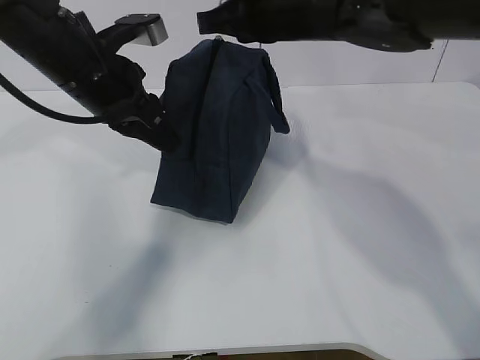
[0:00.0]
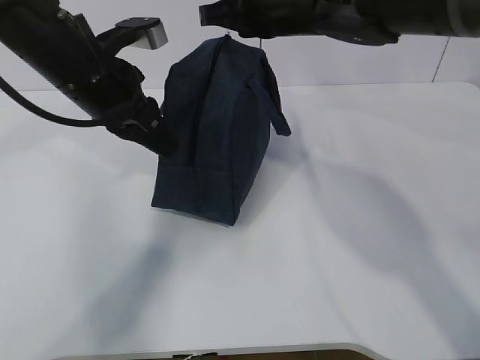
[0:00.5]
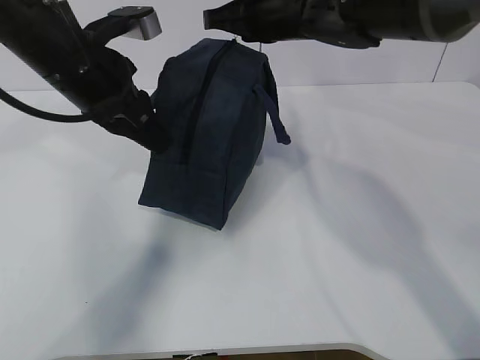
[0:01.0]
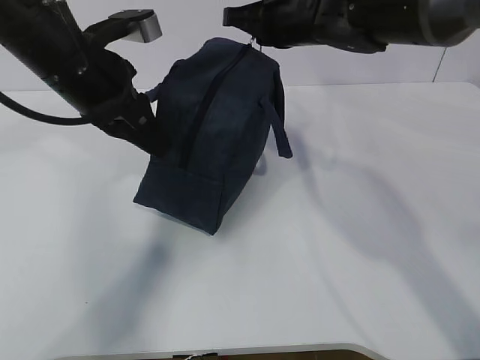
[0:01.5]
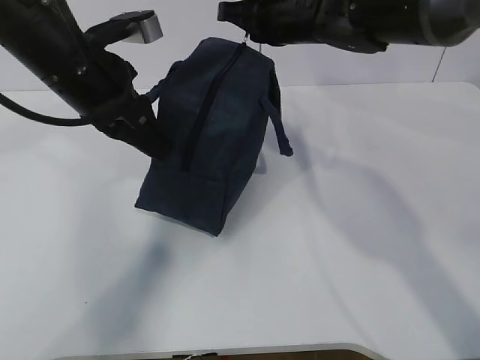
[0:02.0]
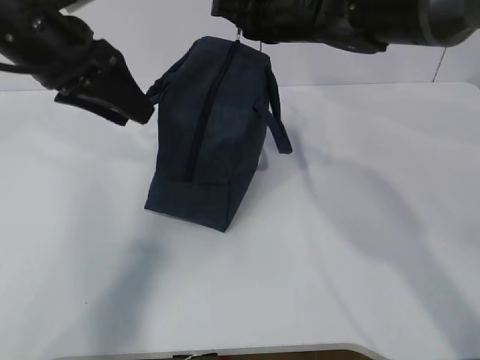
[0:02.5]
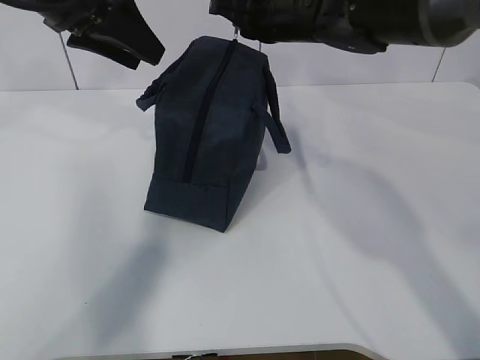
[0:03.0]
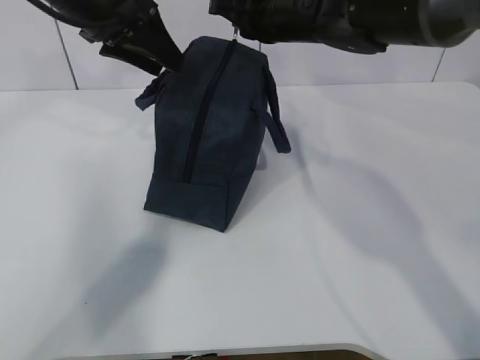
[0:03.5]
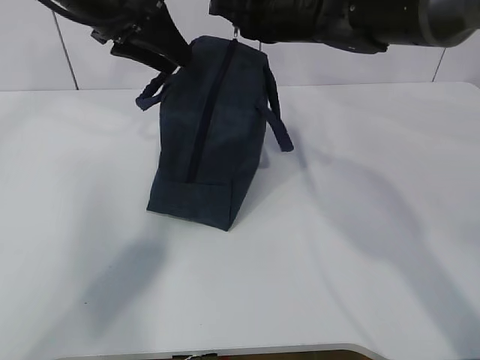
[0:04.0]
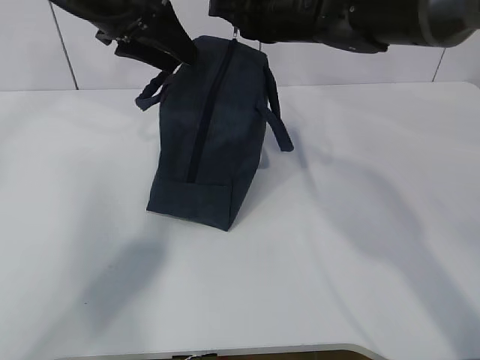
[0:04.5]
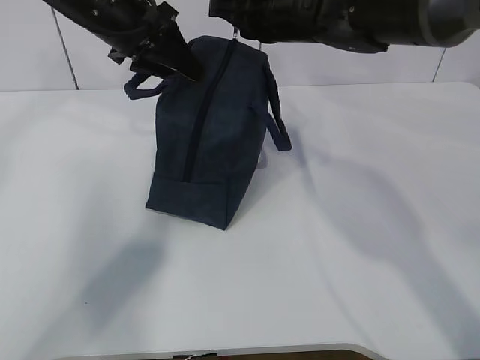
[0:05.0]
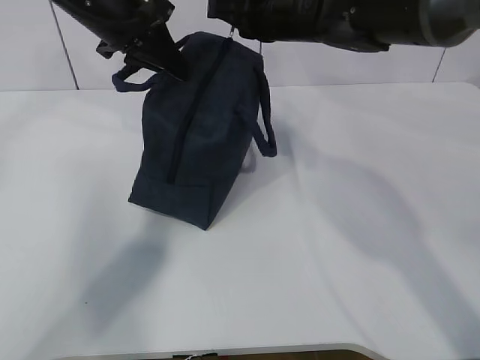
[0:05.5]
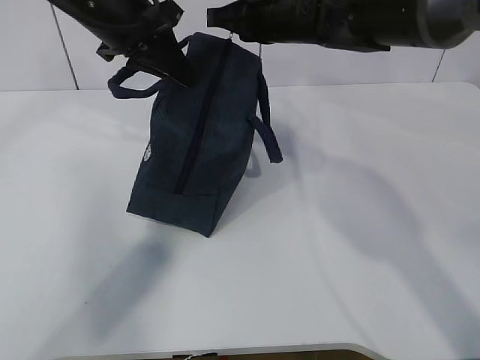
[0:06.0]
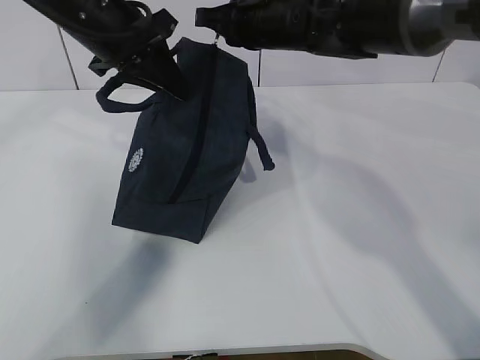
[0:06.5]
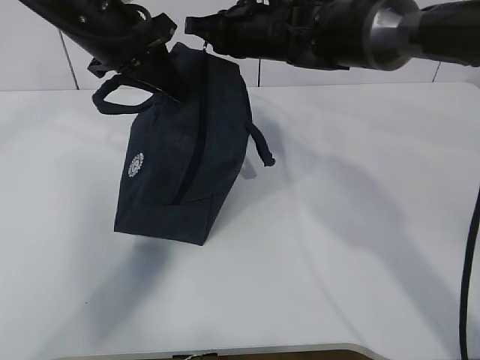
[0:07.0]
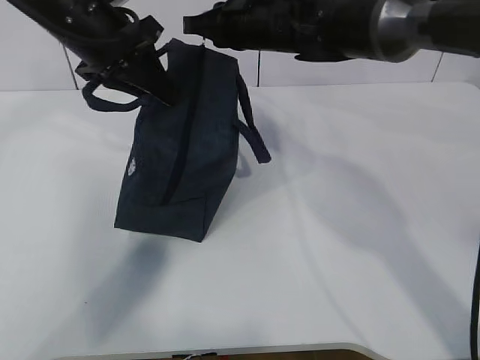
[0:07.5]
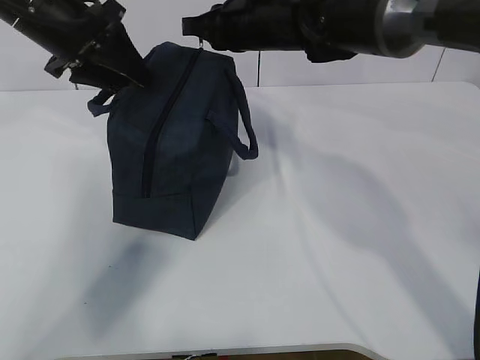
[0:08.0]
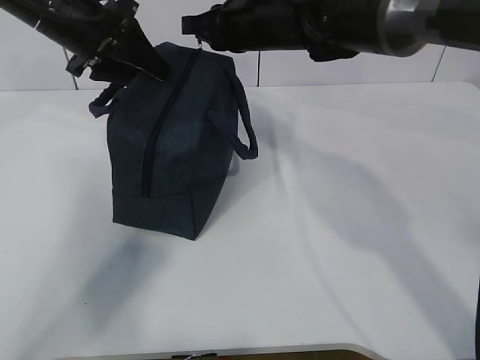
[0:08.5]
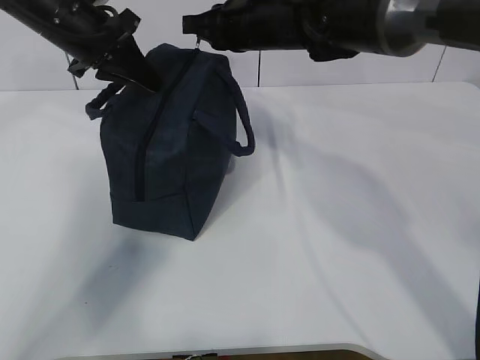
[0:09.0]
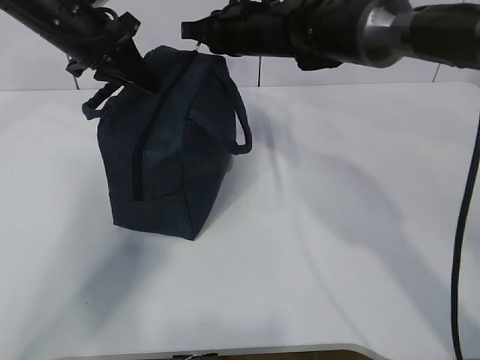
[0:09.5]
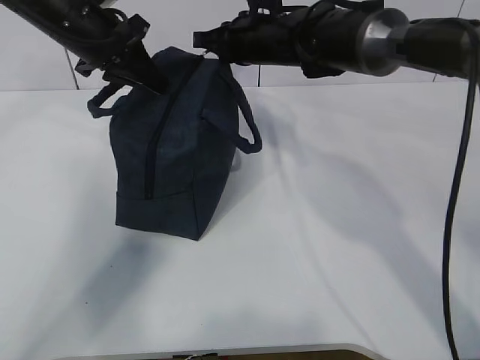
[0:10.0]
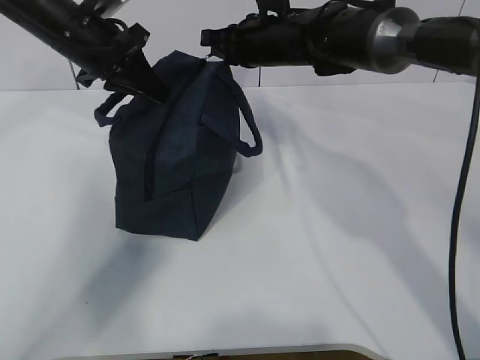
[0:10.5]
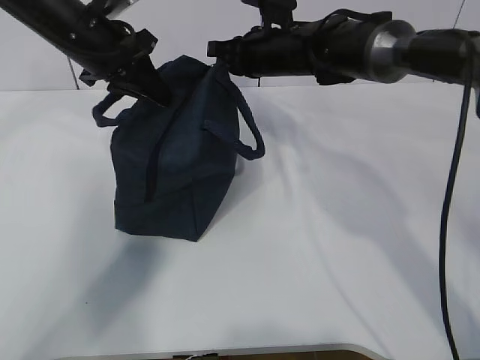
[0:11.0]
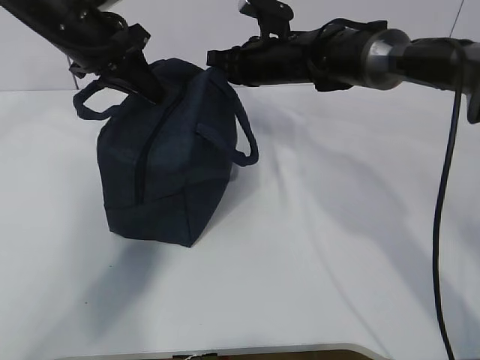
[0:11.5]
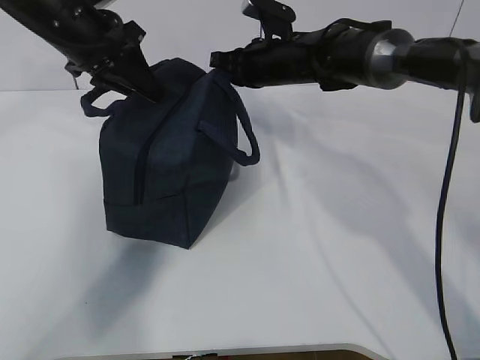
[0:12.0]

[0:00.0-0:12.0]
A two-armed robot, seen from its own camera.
Step, 0:00.0 to 0:02.0: Pull the zipper with your right hand.
Step, 0:02.5 to 0:04.0: Grab the lunch bag with your left hand.
0:00.0 to 0:02.0: The right gripper travels forward by some 5 cm.
0:02.0 to 0:04.0: The left gripper shifts some 10 cm forward, and opens its fingers.
0:04.0 to 0:06.0: The left gripper closes.
0:06.0 to 0:08.0: The left gripper goes some 5 cm to the left, and opens up.
0:08.0 to 0:10.0: The left gripper closes.
0:10.0 to 0:12.0: The grippers make only small movements.

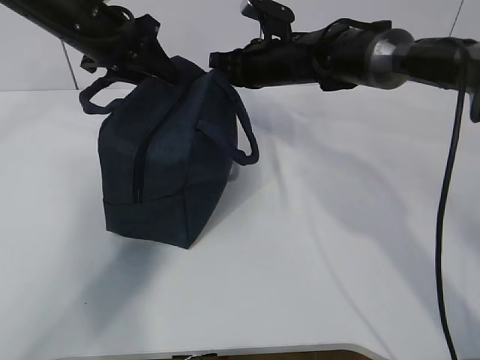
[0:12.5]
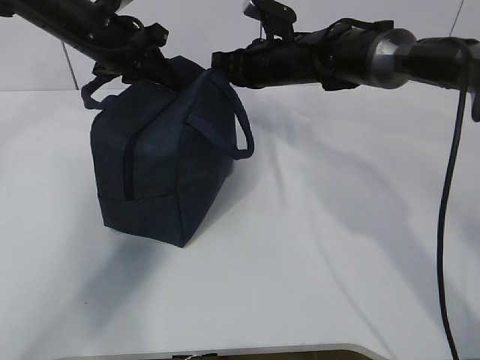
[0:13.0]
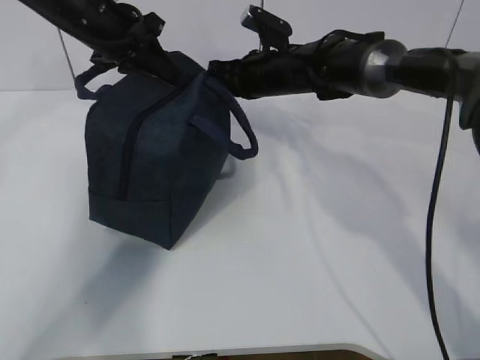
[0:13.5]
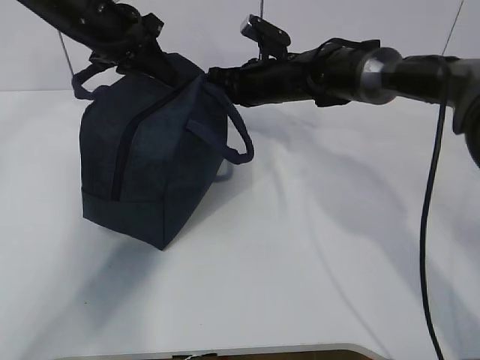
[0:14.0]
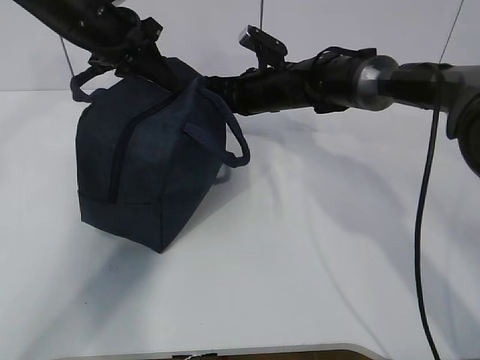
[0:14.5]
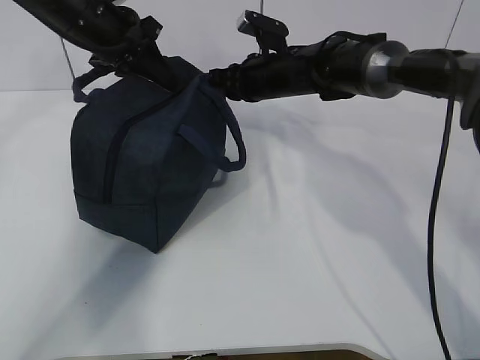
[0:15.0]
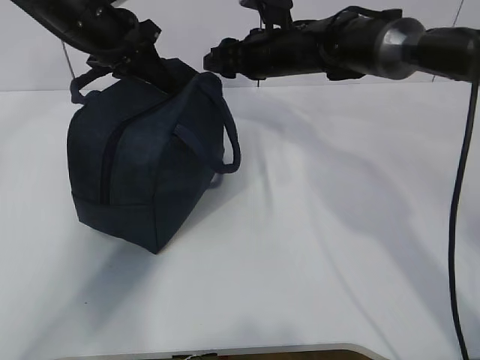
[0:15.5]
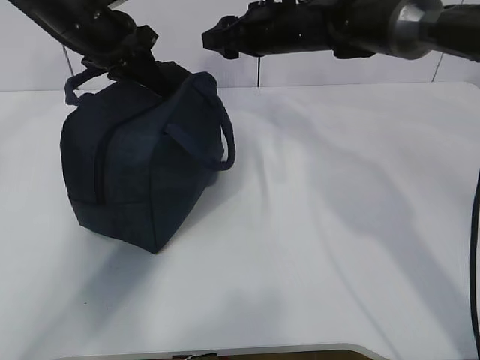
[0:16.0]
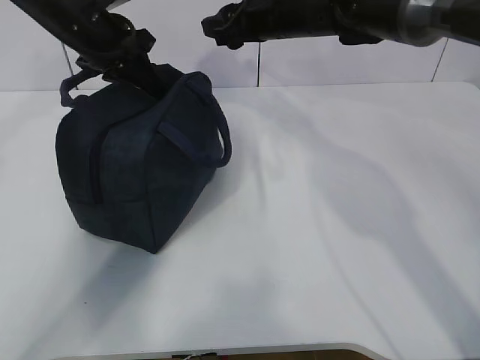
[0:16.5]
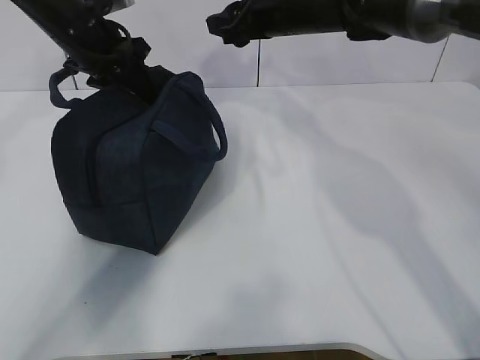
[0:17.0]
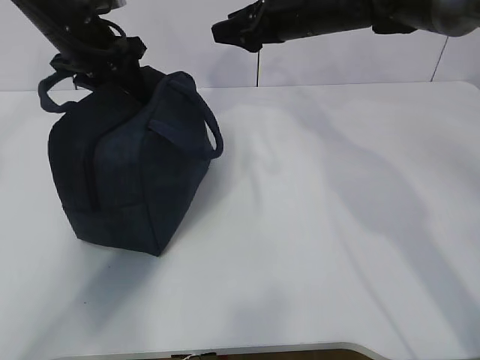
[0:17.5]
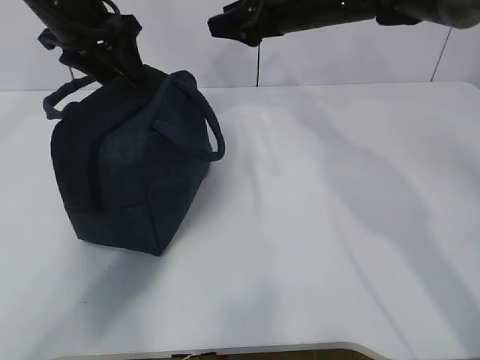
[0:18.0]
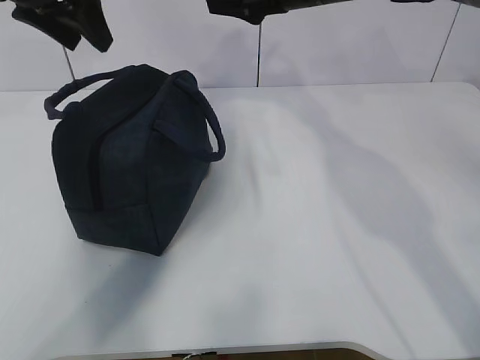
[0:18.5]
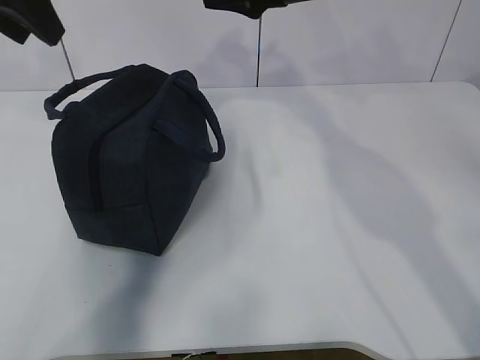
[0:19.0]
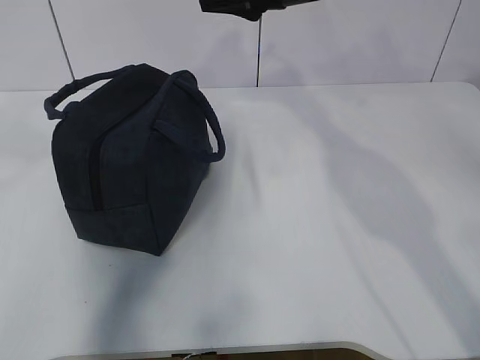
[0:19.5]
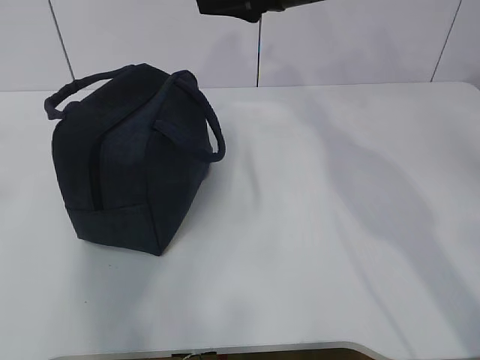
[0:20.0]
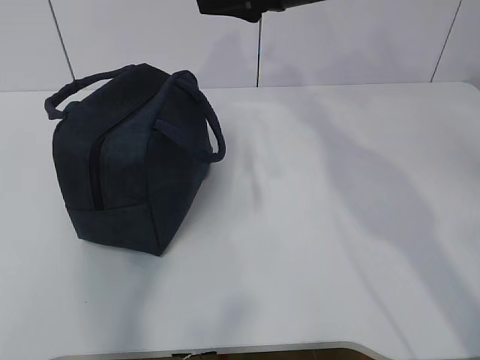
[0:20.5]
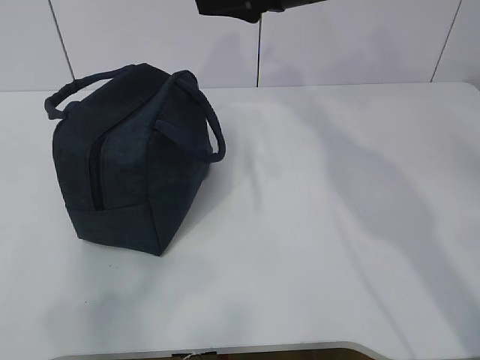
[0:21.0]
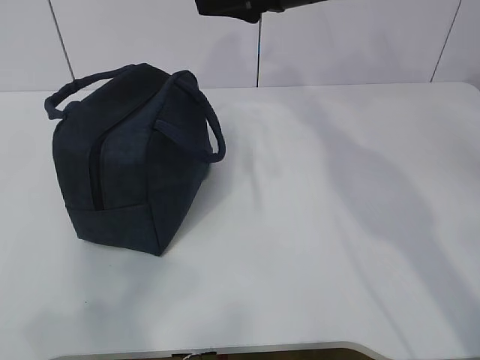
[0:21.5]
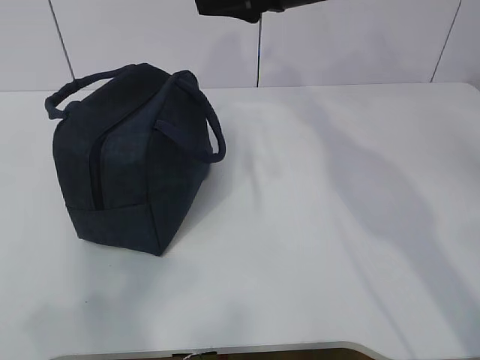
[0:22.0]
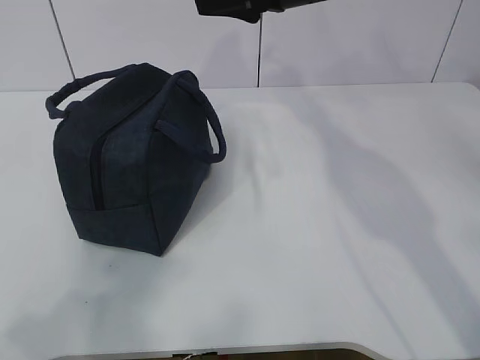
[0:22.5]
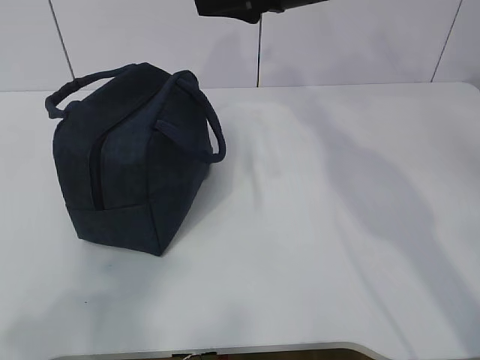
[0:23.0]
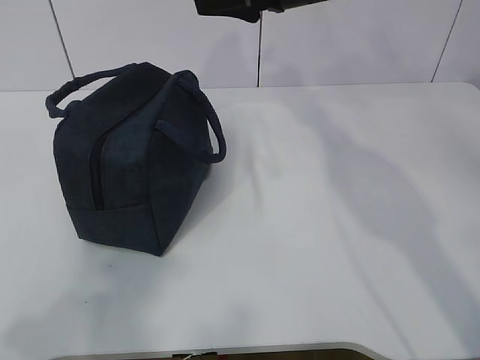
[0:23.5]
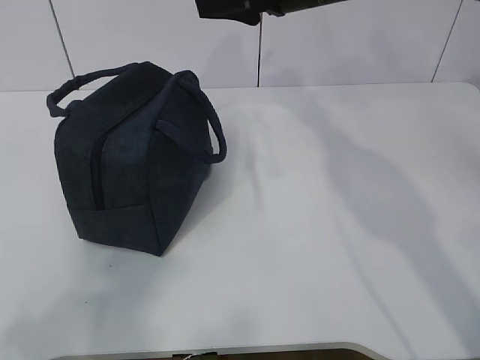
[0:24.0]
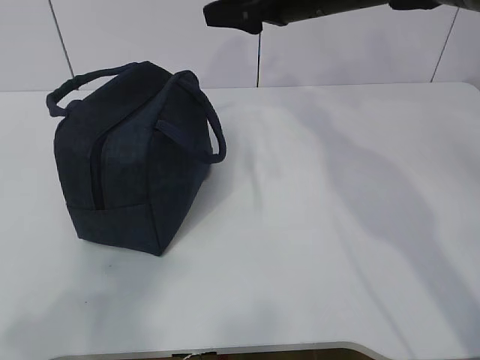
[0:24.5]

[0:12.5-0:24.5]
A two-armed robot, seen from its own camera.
0:12.5 to 0:14.5: The left gripper closes.
0:14.5 to 0:16.5: The right gripper is displaced upward by approximately 10 cm, and opens its fingers.
0:16.5 to 0:18.5: The right gripper shifts by some 5 cm, while the left gripper shifts some 10 cm upward, and opens its fingers.
0:18.5 to 0:20.5: The left gripper moves backward, roughly 40 cm, and closes its fingers.
0:20.5 to 0:22.5: The left gripper goes approximately 10 cm downward.
0:22.5 to 0:24.5: The grippers make only small movements.

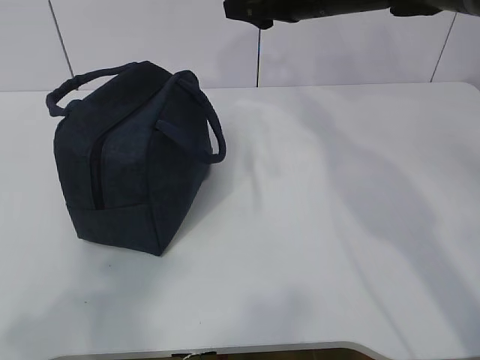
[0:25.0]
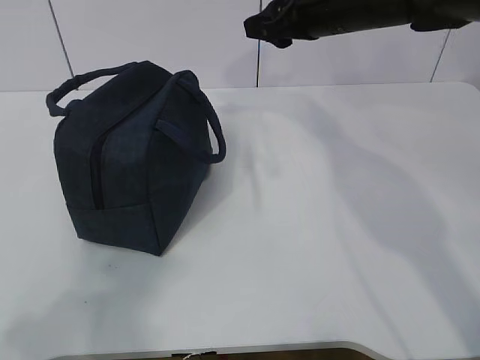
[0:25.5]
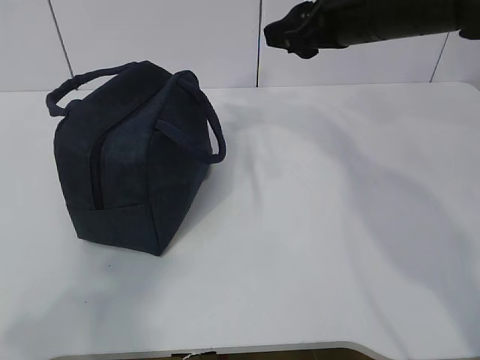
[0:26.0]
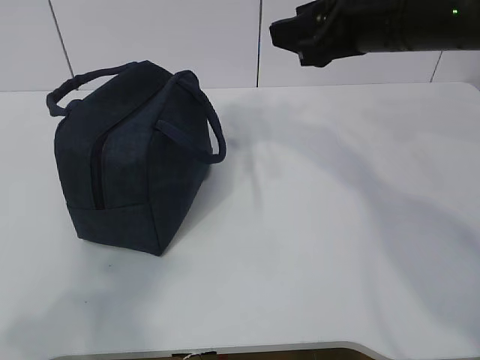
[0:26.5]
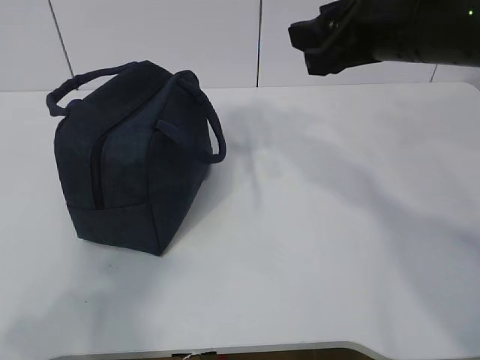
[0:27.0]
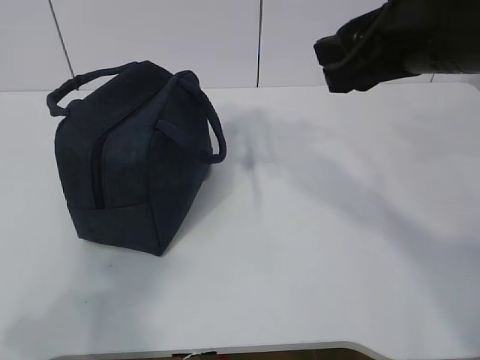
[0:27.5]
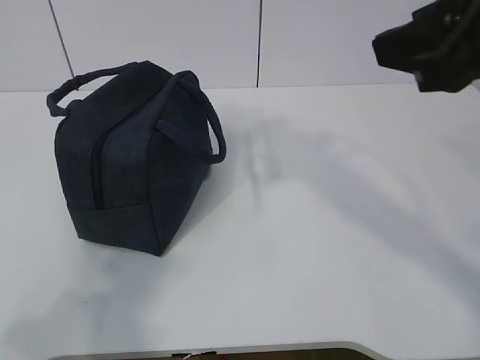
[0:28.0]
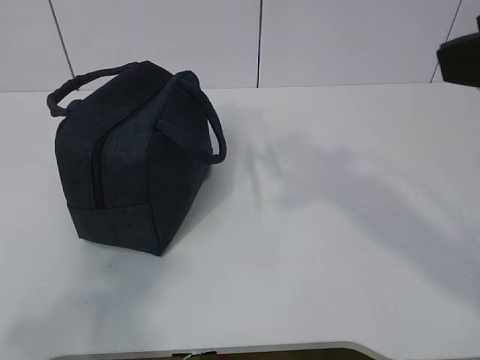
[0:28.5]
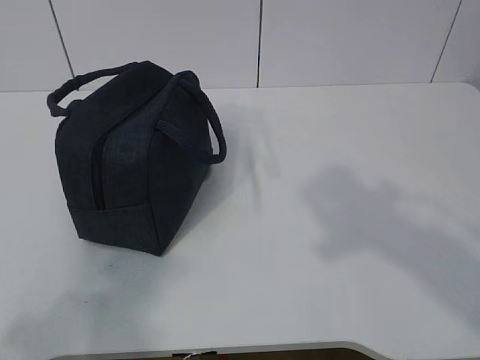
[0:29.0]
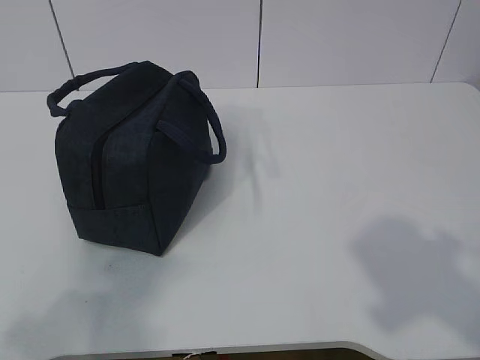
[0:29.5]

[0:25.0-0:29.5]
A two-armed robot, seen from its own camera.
0:25.0 to 0:27.0: The right gripper heads backward, covering roughly 15 cm.
0:27.0 to 0:29.5: The right gripper shifts approximately 30 cm backward and to the right.
